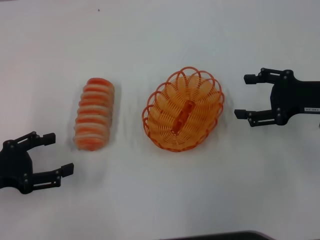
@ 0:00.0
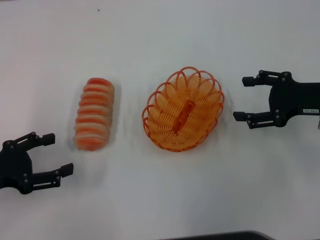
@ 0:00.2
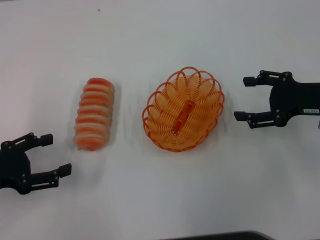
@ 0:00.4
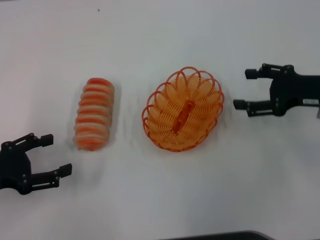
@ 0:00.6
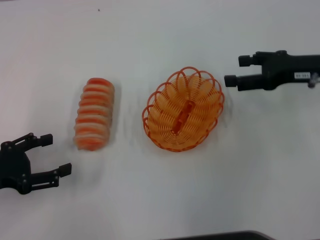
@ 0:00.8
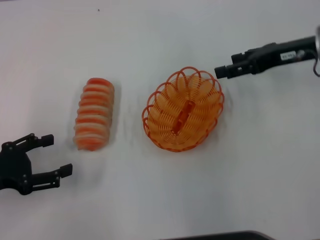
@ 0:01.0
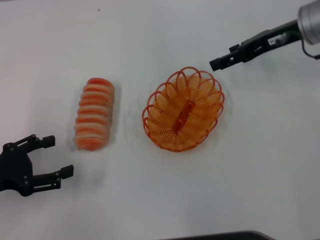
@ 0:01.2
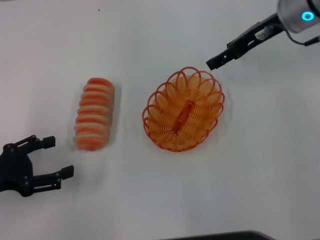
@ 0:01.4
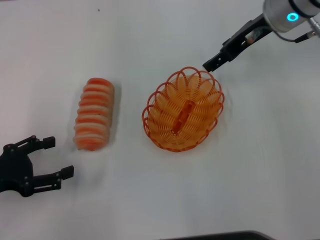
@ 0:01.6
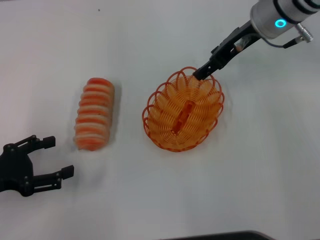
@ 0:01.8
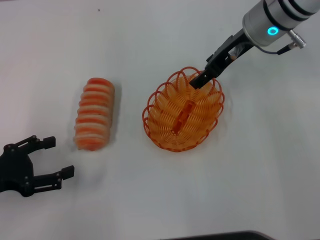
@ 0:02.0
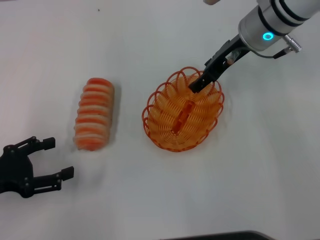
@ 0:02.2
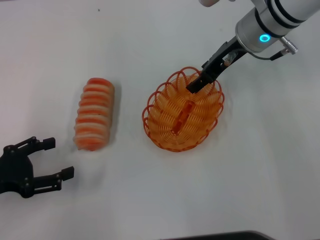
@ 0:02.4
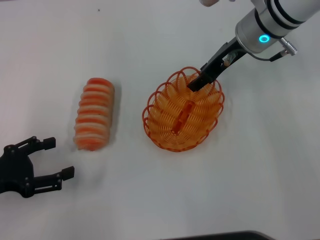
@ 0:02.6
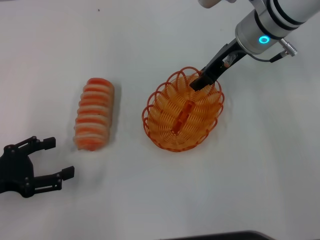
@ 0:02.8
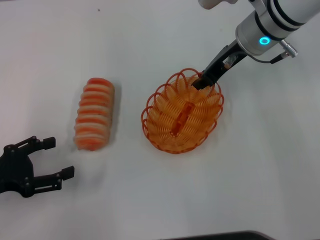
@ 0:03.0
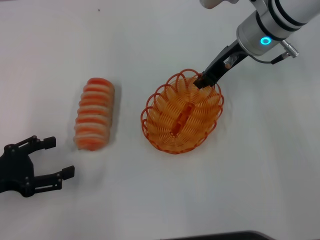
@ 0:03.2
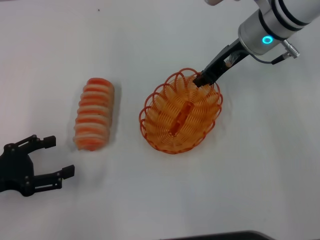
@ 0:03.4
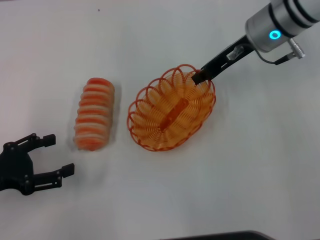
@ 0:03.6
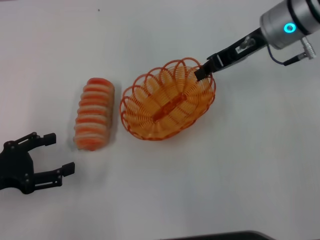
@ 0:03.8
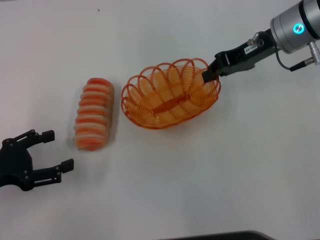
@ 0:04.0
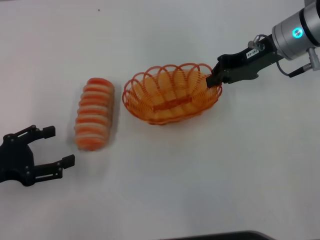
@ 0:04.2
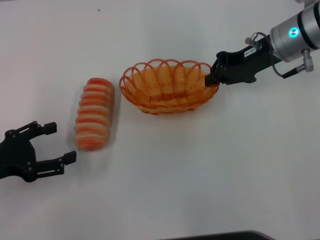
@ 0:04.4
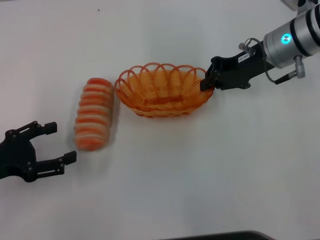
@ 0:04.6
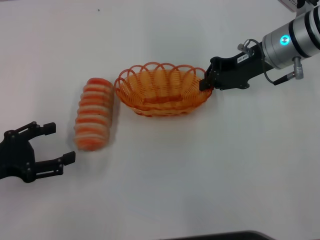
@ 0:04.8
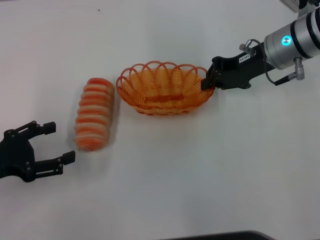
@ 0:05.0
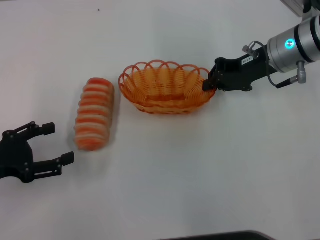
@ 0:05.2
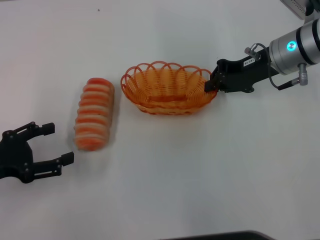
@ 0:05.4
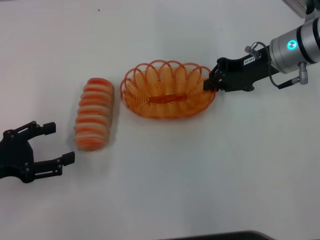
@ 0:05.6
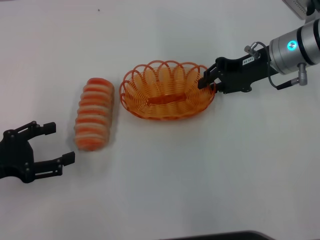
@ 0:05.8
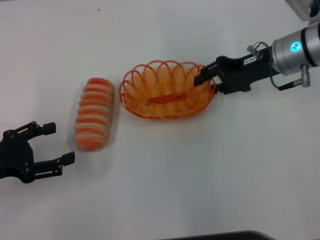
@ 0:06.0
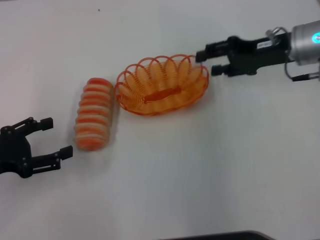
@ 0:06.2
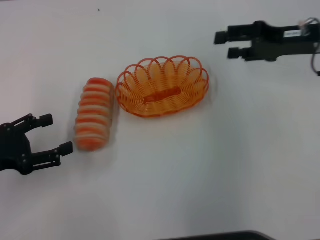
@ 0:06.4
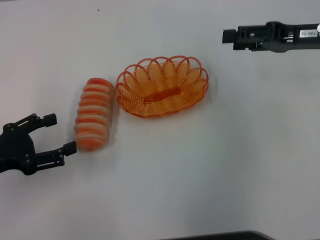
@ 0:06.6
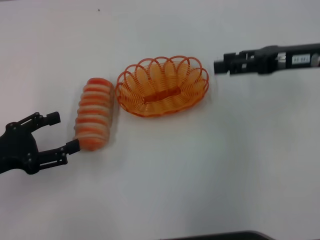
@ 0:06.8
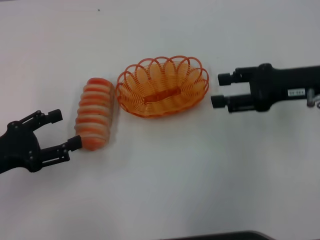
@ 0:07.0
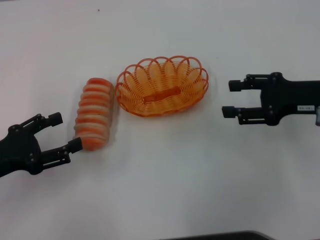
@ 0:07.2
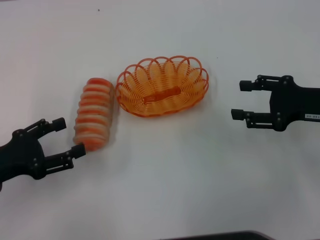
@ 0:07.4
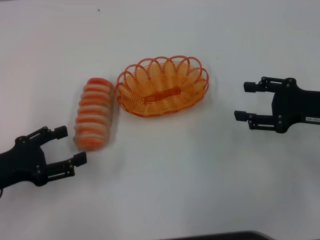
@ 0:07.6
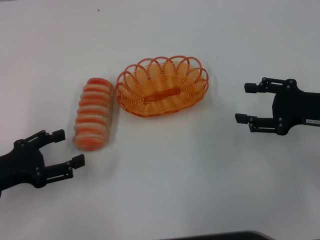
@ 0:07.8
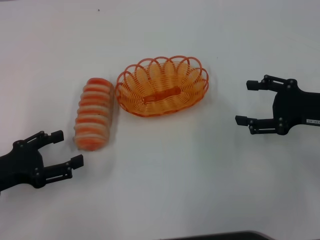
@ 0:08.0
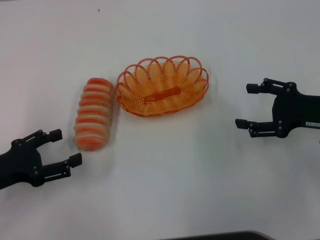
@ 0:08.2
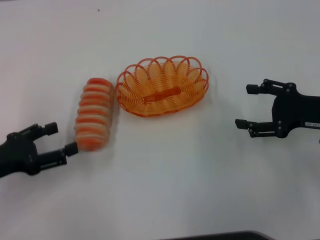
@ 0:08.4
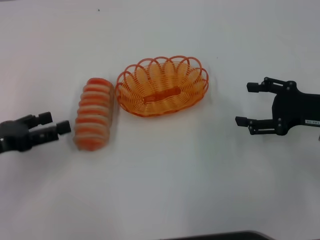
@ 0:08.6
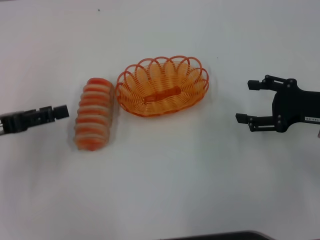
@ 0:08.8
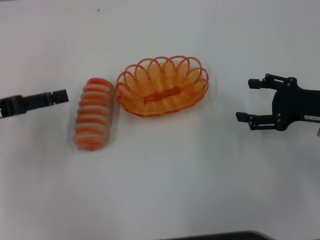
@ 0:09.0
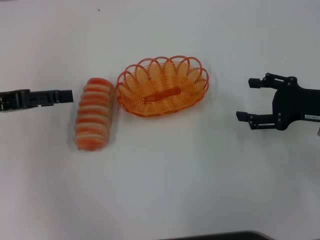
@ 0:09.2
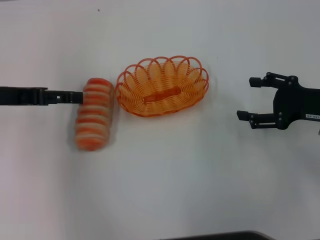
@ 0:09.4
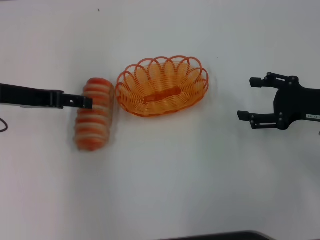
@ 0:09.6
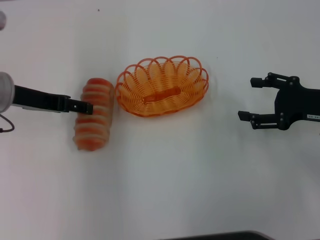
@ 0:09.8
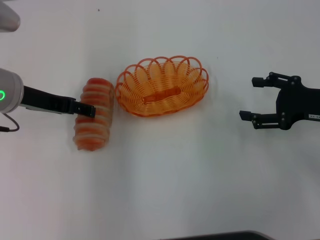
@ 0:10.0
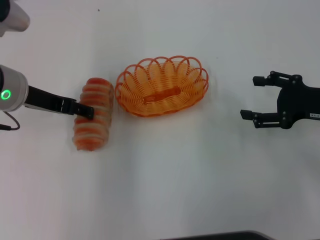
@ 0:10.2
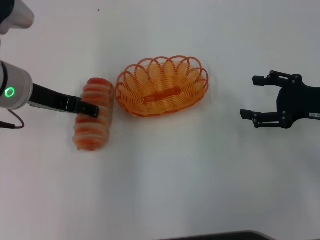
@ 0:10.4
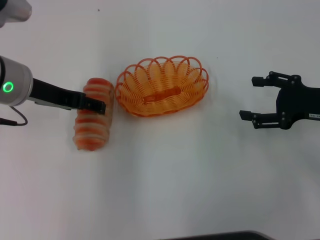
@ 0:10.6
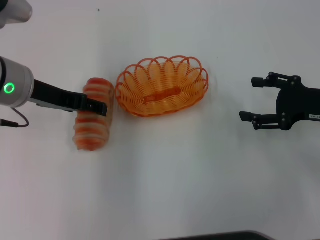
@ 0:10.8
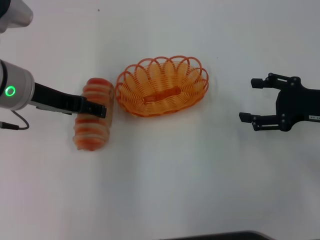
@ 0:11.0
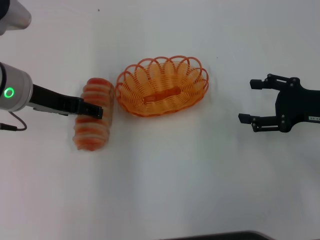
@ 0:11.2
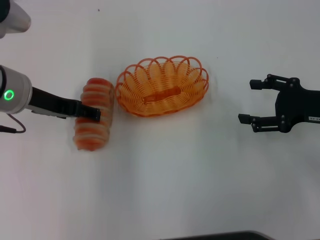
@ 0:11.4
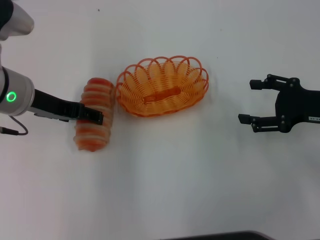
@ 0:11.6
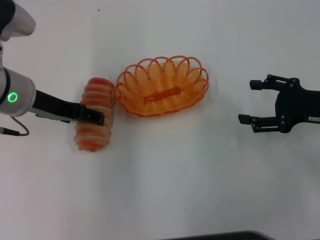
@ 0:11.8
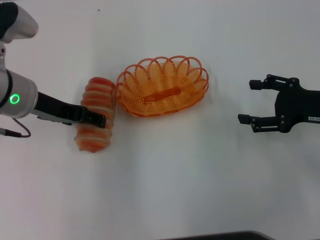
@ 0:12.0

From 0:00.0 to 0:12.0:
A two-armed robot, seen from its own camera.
Step, from 0:00.0 to 0:03.6: Pick up the basket with the right gripper.
Step, from 0:03.8 to 0:06.2: Place the basket in the center of view with the right gripper.
From 0:00.0 to 0:01.6: The right gripper moves forward, to the left and upward, roughly 20 cm.
From 0:01.6 to 0:03.0: The right gripper closes its fingers.
From 0:03.0 to 0:04.4: The right gripper is displaced to the right by approximately 5 cm, and closes up.
From 0:04.4 to 0:06.0: The grippers stay close to where they were, moving slightly.
From 0:06.0 to 0:07.6: The right gripper is displaced backward and to the right by some 15 cm, and opens its fingers.
From 0:07.6 to 0:09.0: The left gripper heads upward and forward, covering roughly 10 cm.
From 0:09.0 to 0:10.4: The left gripper goes some 10 cm to the right.
From 0:10.4 to 0:12.0: The grippers move only a little.

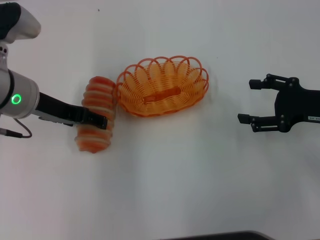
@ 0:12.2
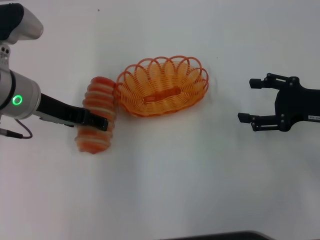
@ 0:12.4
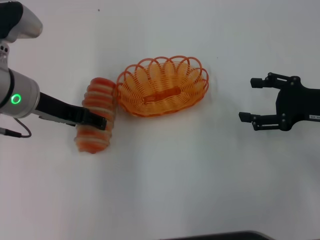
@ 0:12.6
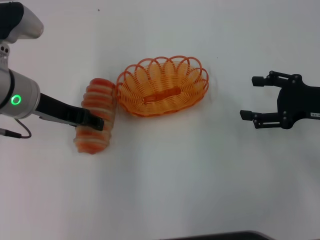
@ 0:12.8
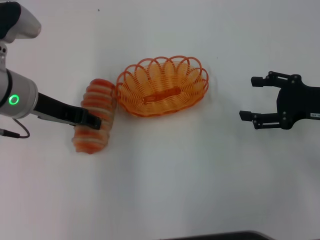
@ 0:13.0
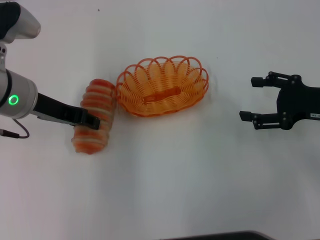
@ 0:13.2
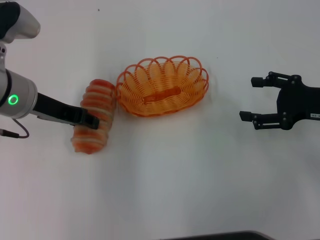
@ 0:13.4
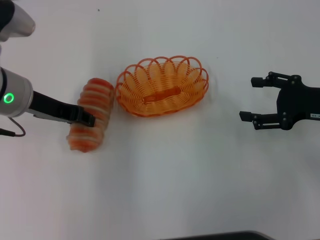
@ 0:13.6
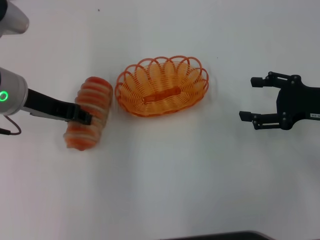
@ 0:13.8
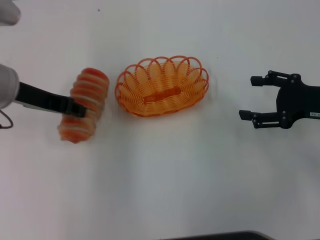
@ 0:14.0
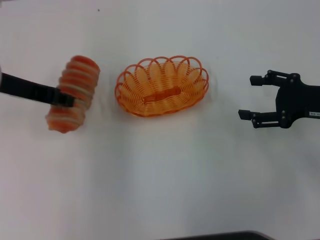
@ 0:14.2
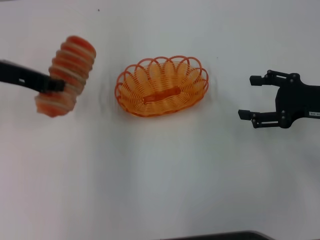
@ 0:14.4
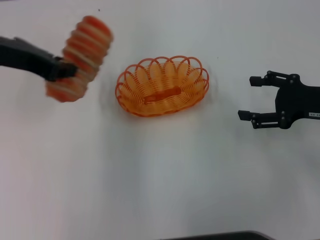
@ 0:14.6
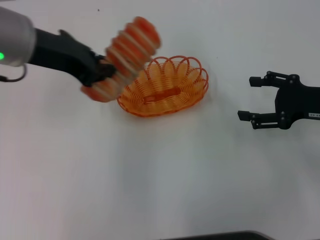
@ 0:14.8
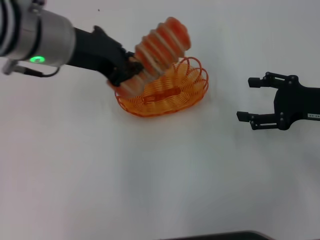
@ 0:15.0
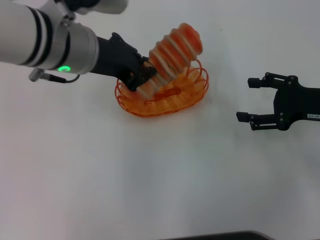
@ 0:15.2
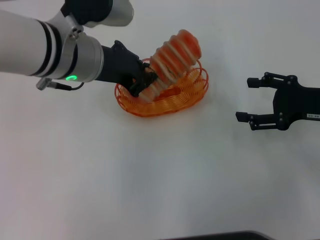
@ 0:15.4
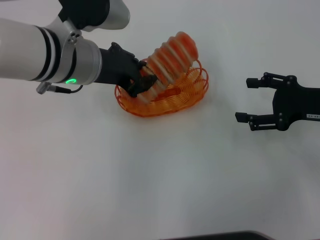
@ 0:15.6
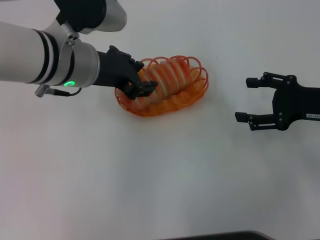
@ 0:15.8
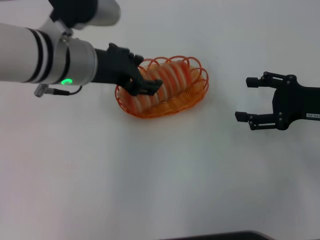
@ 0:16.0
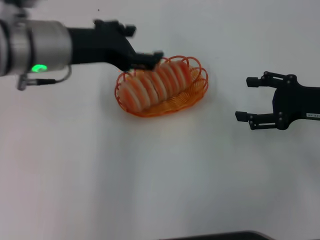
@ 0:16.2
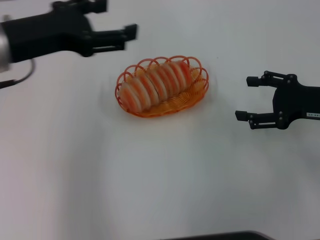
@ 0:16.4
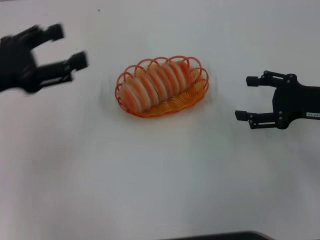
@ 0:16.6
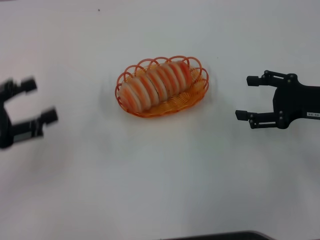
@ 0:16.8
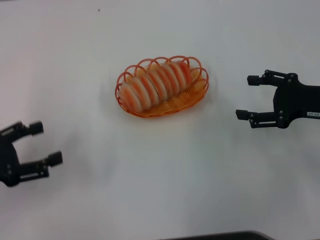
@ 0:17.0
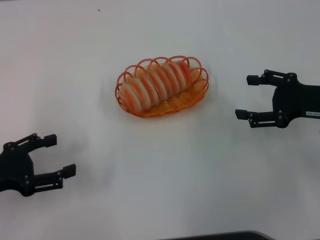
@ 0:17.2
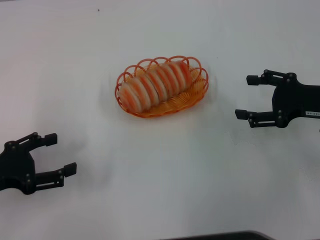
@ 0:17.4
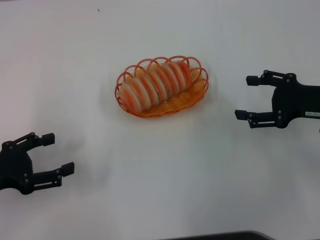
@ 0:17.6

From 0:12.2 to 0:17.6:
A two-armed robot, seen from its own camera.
Step, from 0:14.2 to 0:16.4: Place the long bread into the basket with the left gripper.
From 0:12.2 to 0:13.6: The left gripper closes up.
From 0:13.6 to 0:15.0: The left gripper travels upward and to the right by approximately 10 cm, and closes up.
From 0:15.0 to 0:16.2: The left gripper opens up.
From 0:16.2 to 0:17.6: The left gripper shifts approximately 25 cm to the left, downward and backward.
